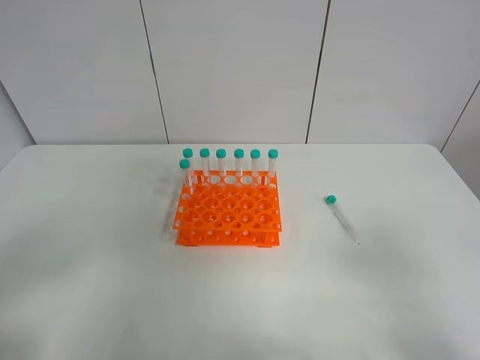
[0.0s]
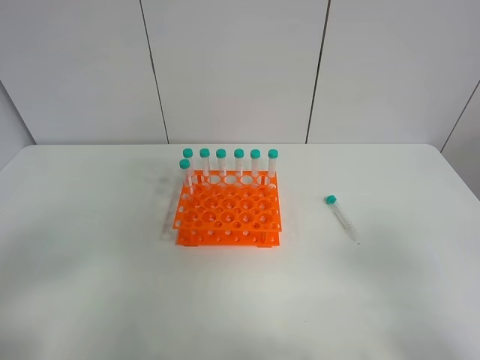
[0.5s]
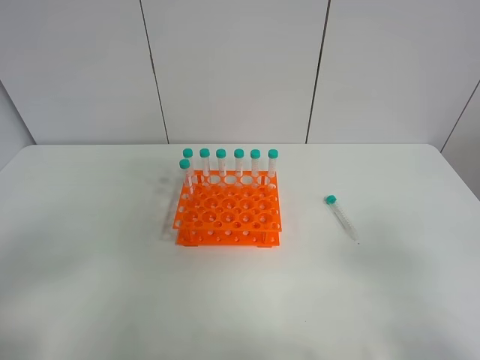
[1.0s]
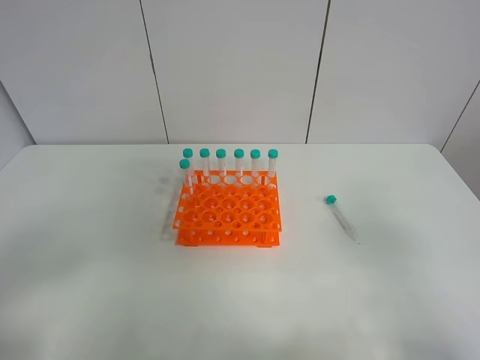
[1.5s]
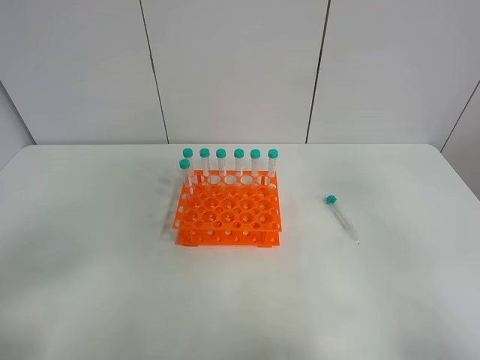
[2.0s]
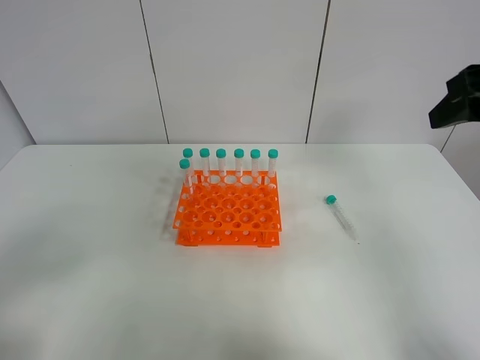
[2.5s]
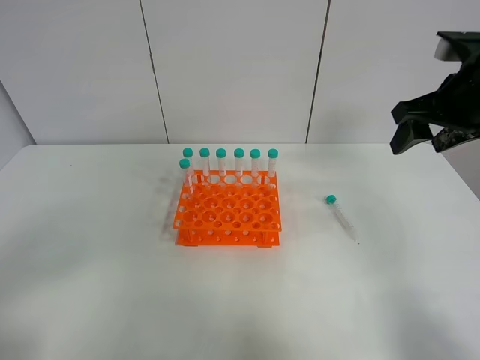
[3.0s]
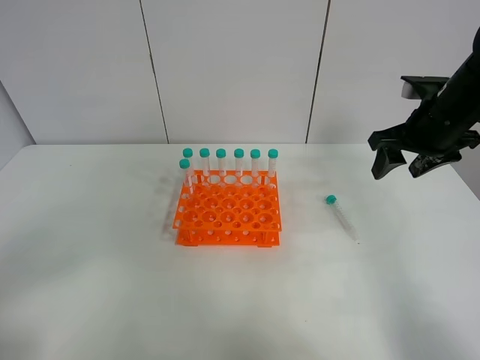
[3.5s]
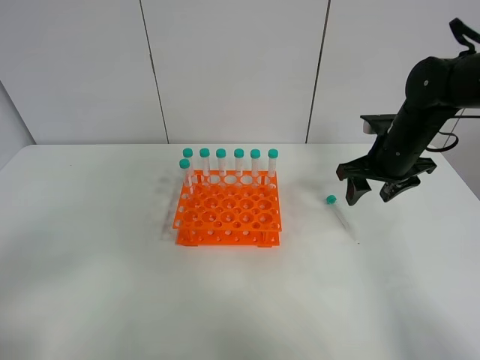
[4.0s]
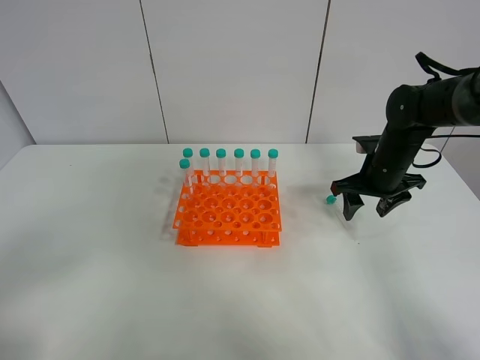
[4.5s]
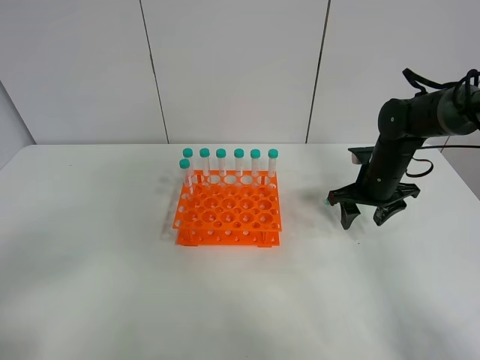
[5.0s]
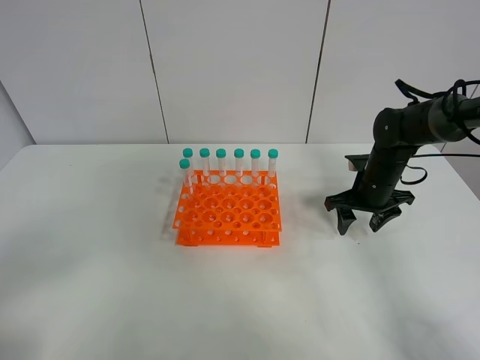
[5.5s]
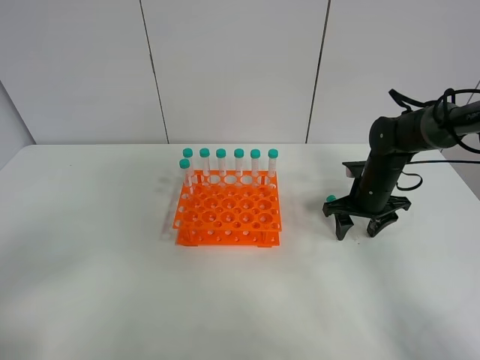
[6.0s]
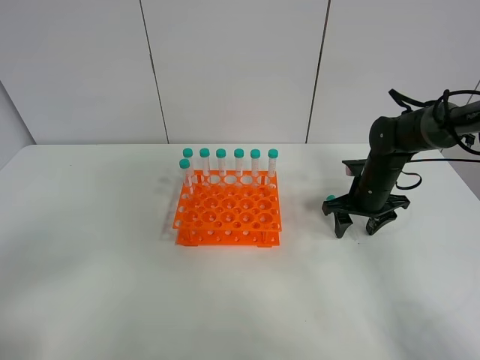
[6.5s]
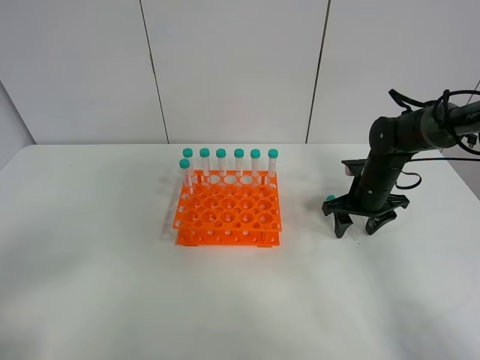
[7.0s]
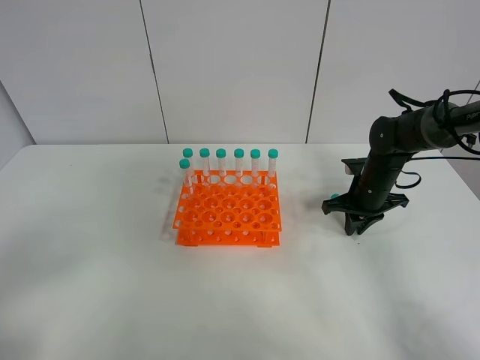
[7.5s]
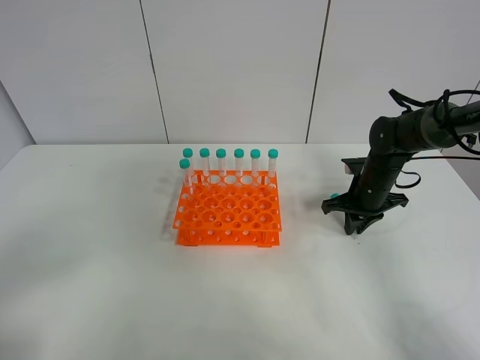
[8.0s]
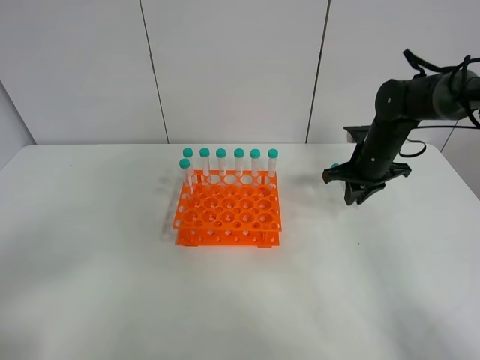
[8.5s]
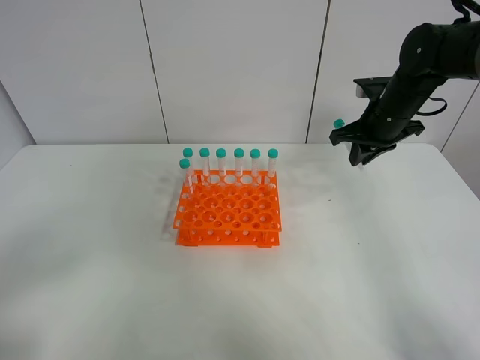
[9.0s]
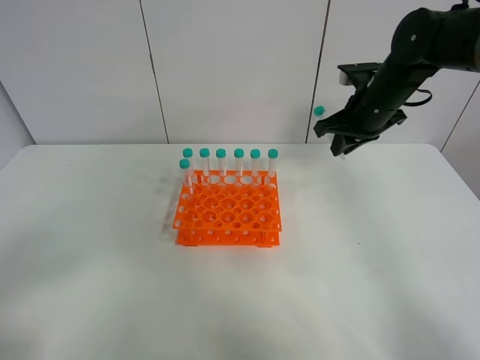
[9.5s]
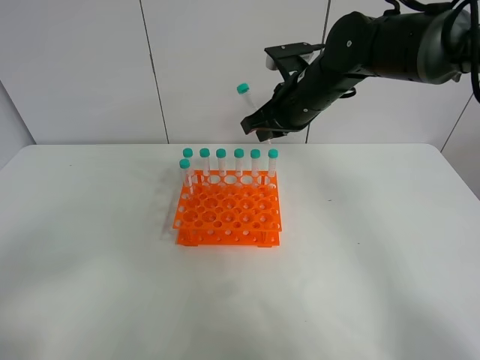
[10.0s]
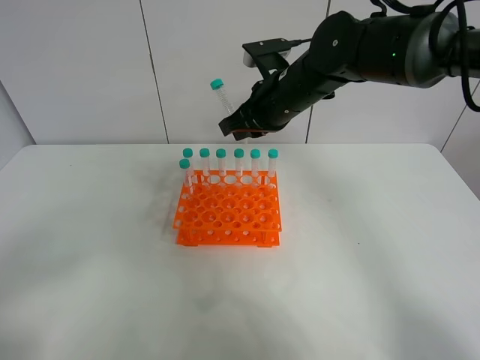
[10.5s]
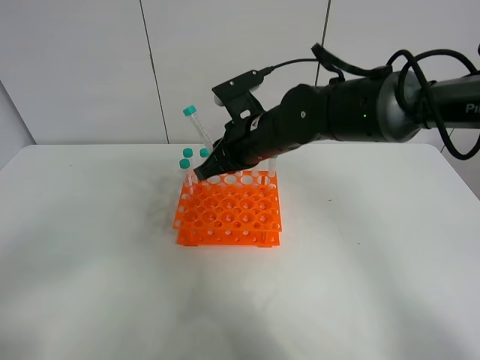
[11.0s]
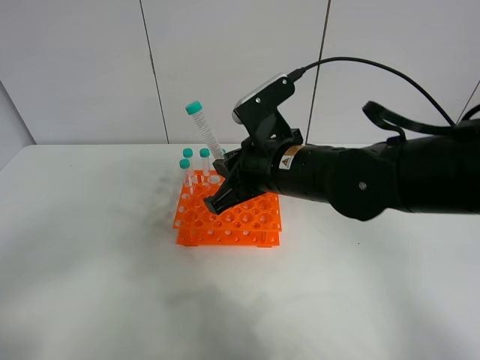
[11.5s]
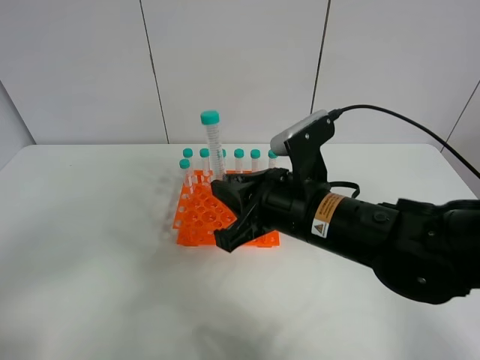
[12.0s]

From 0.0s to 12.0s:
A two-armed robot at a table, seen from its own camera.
Task of the whole recording: Put the test tube on the table back onto the test tube rack.
Step, from 0.0s to 9.0s: Pick up the test tube with the right gripper.
From 2.0s to 4.0s: The right gripper is displaced forward and downward by approximately 30 cm.
From 4.0s to 6.0s: The right gripper is displaced downward by about 10 cm.
From 6.0s to 8.0s: The right gripper closes its fingers.
From 8.0s to 10.0s: The right gripper travels upward and to the left by some 20 cm.
From 10.0s to 12.0s: The right gripper is displaced backward by about 20 cm.

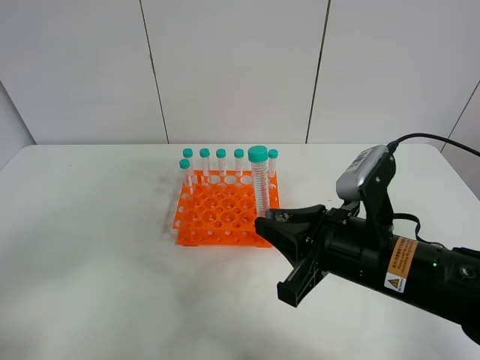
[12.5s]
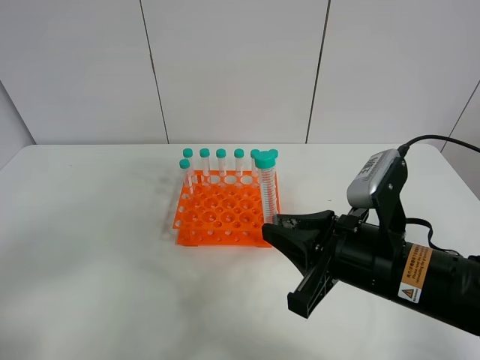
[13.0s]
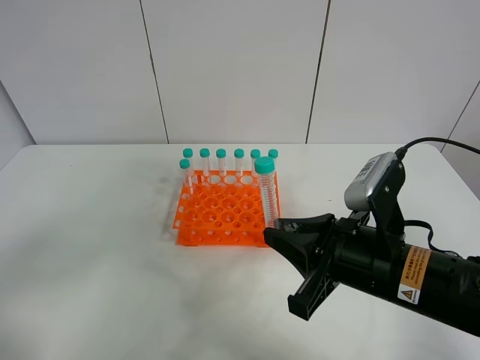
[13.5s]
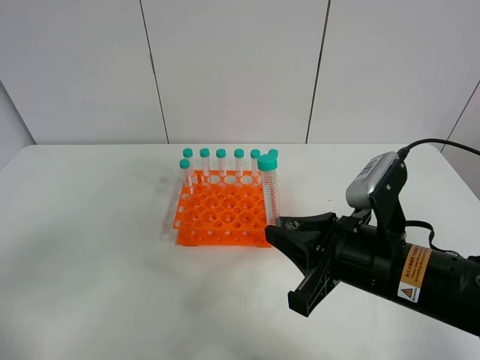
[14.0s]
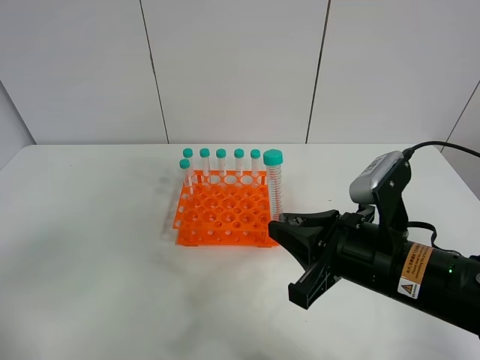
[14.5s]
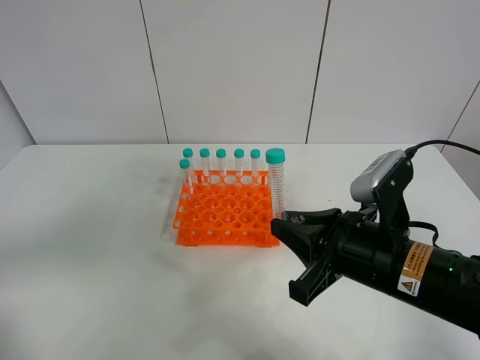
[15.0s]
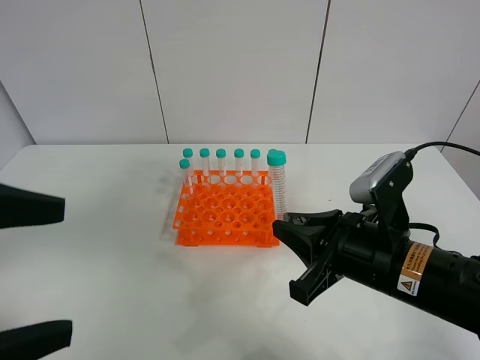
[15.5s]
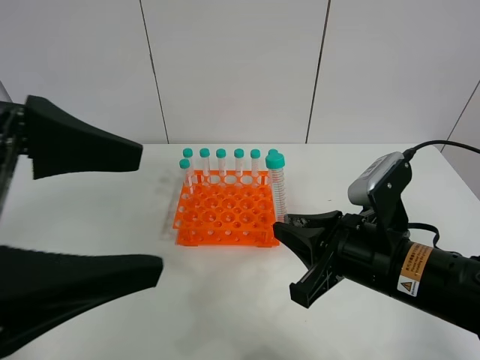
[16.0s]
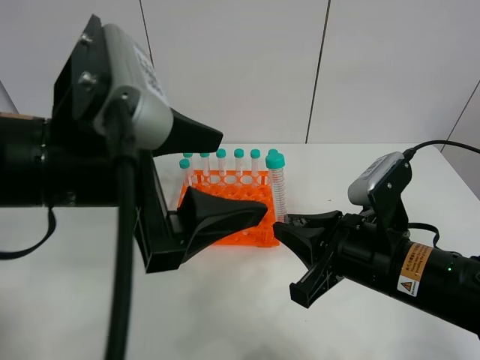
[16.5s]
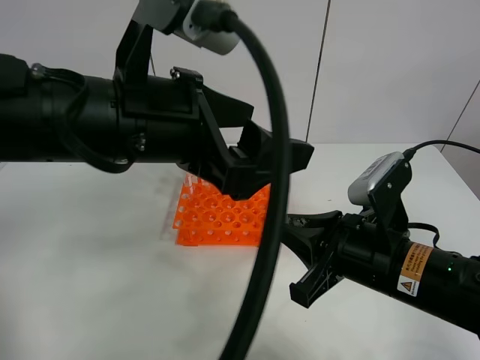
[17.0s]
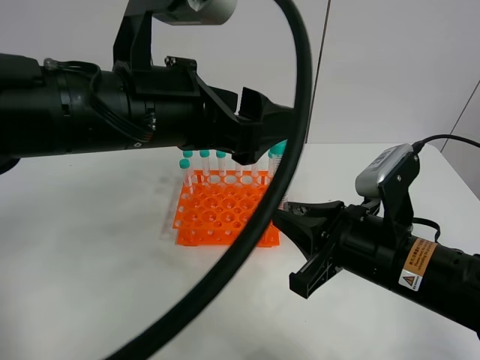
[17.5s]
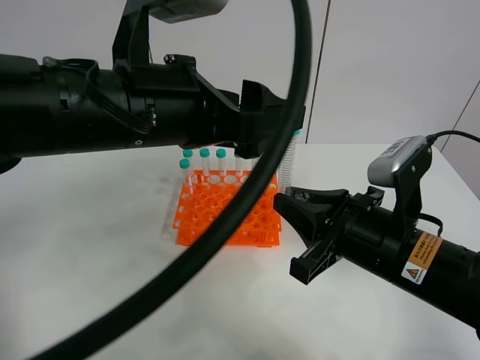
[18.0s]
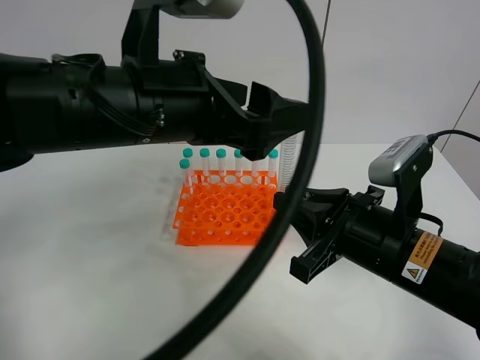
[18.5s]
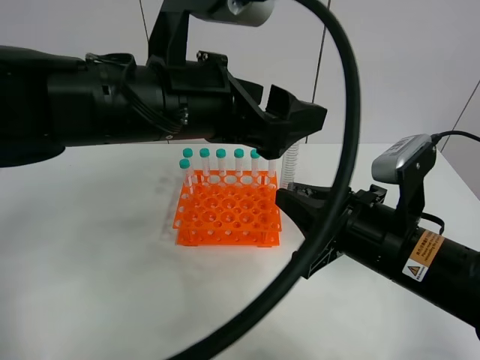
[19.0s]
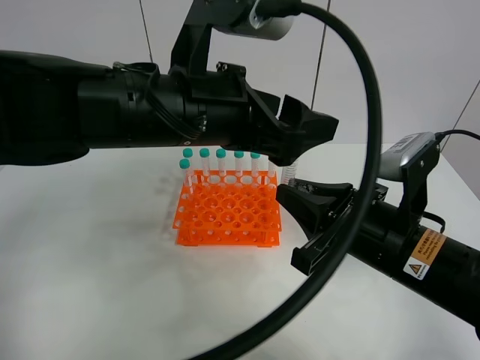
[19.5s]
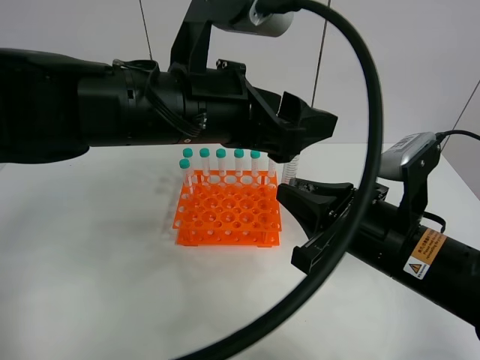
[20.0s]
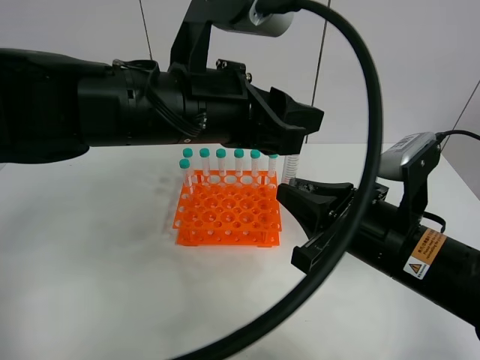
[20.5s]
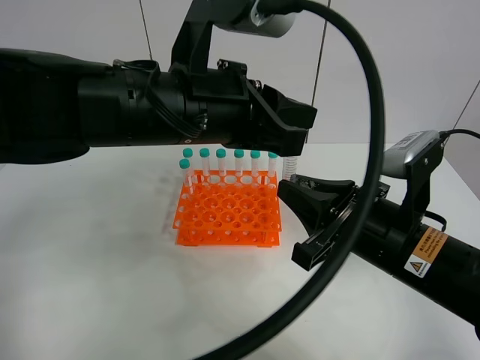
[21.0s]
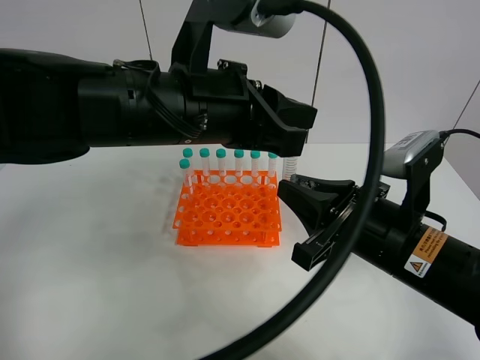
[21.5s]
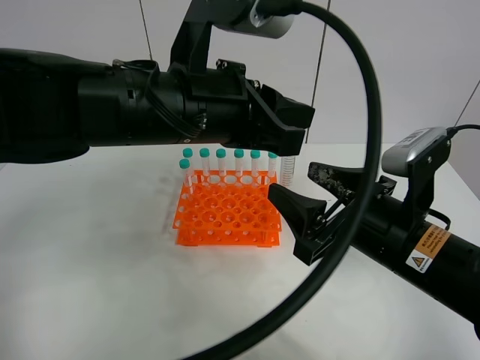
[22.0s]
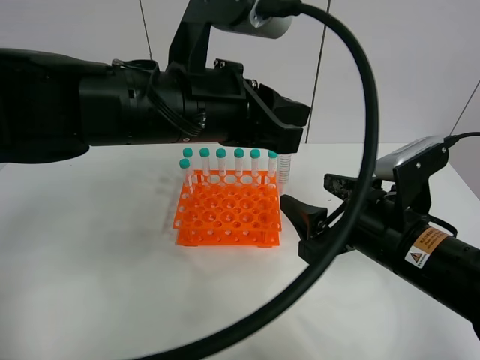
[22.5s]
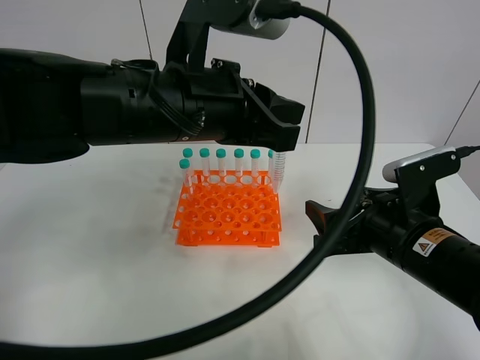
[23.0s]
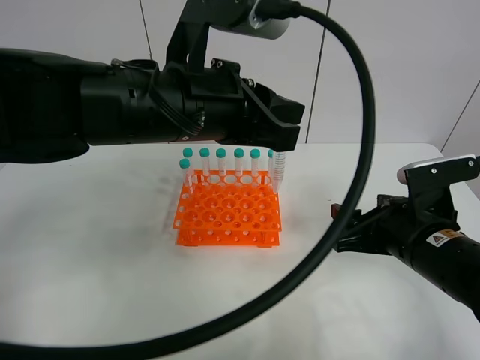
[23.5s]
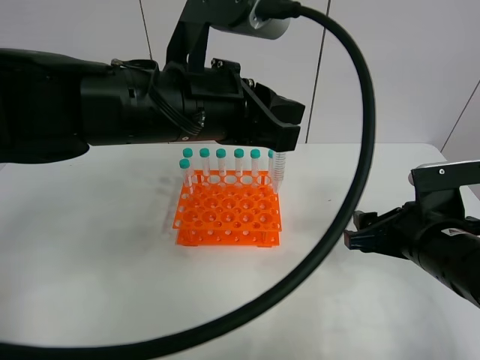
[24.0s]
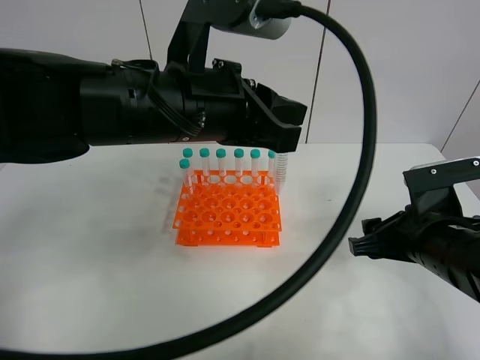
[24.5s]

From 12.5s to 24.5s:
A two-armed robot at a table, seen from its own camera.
Task of the whole recording: Put the test tube on the table back onto the test tube rack.
Step, from 12.5s to 23.0s: Move the test tube from the right gripper to the left gripper.
From 14.5s to 16.5s: The left gripper is displaced to the right and forward by roughly 25 cm.
From 16.5s to 18.5s: The left gripper goes about 5 cm forward.
From 18.5s to 20.5s: The left gripper closes up.
From 20.5s to 22.5s: The right gripper opens its fingers. Meanwhile the left gripper closes up.
From 22.5s to 24.5s: The right gripper moves to the right, some 5 cm.

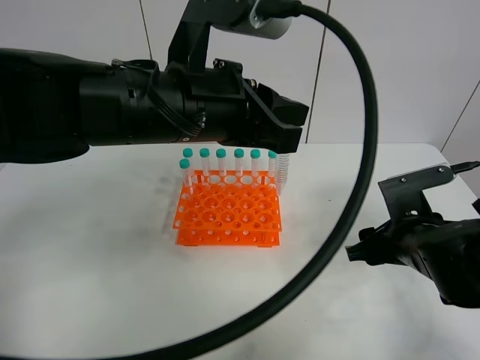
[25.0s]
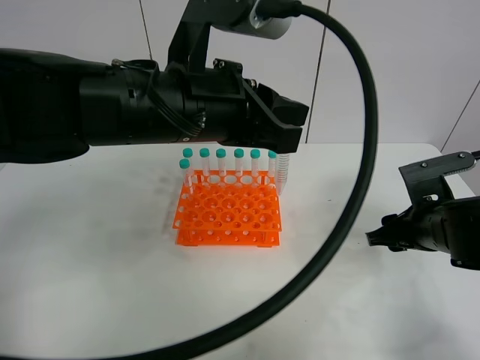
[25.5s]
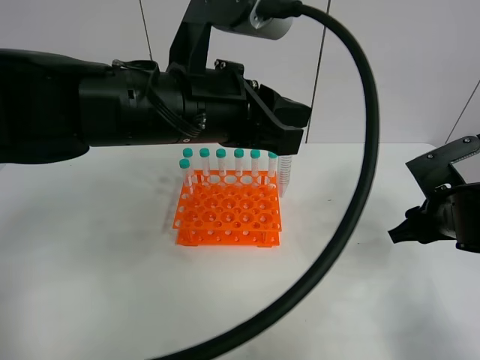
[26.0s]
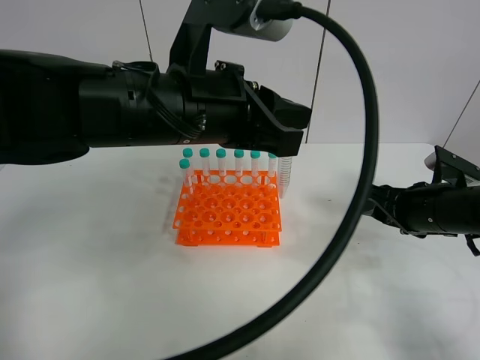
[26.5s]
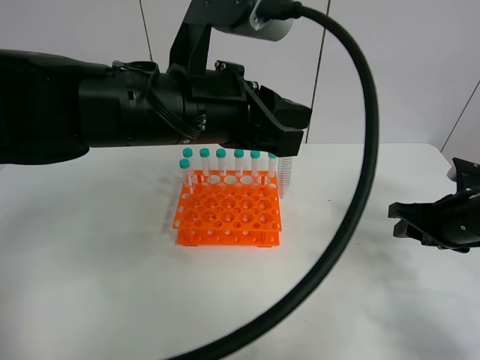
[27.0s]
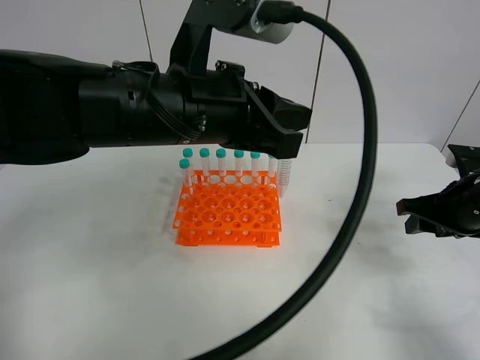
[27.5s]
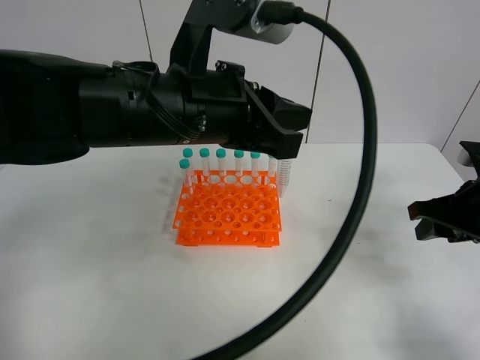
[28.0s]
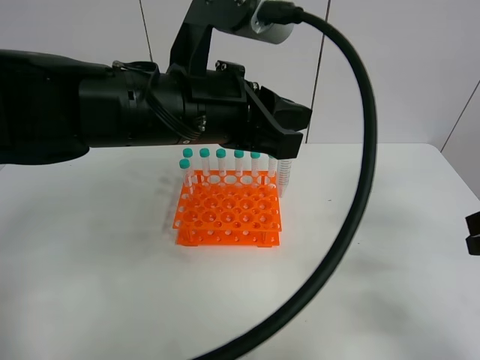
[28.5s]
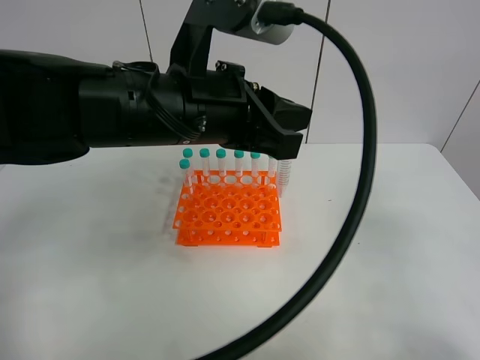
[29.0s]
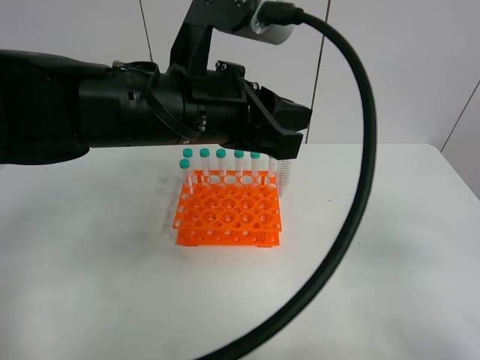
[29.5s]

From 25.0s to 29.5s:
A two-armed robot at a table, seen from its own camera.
Task of the whole recording: Put the test tube on the table back onto the test tube rack.
From 25.0s to 27.0s: The right gripper heads to the right, covering some 10 cm.
From 27.0s to 29.5s: The right gripper shifts about 25 cm backward and upward.
